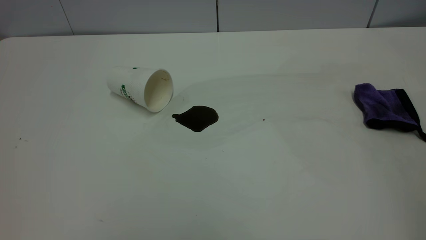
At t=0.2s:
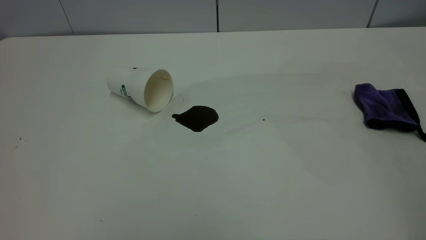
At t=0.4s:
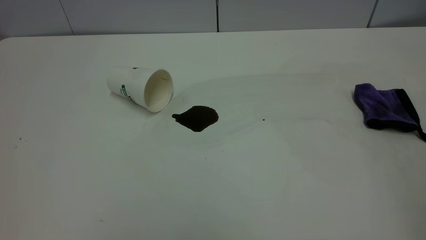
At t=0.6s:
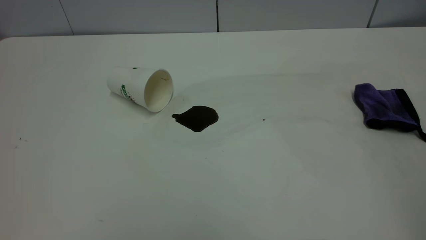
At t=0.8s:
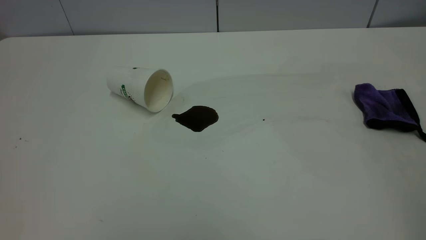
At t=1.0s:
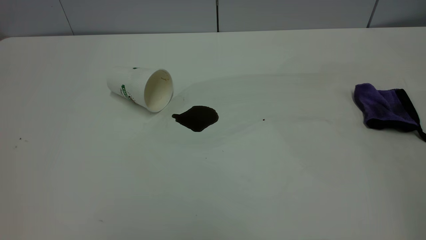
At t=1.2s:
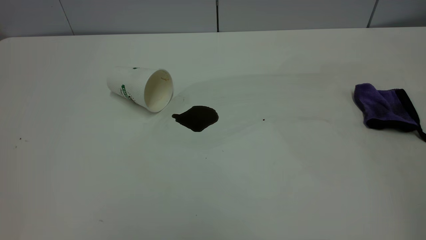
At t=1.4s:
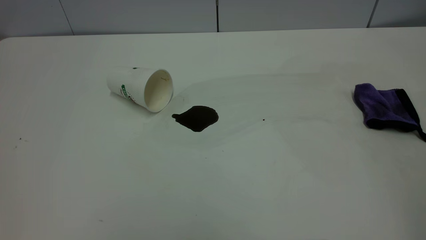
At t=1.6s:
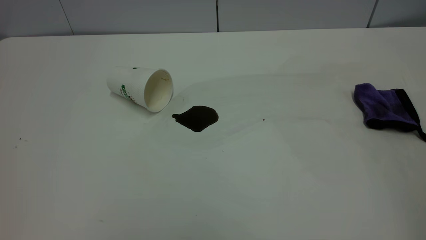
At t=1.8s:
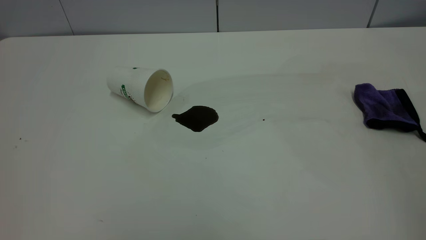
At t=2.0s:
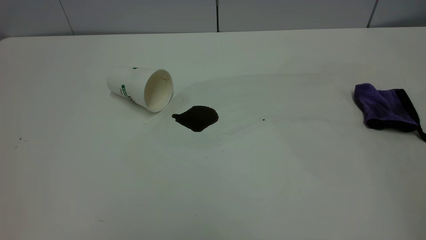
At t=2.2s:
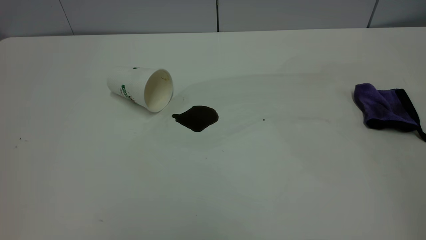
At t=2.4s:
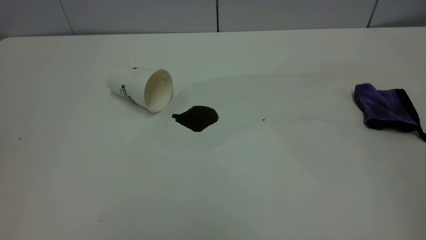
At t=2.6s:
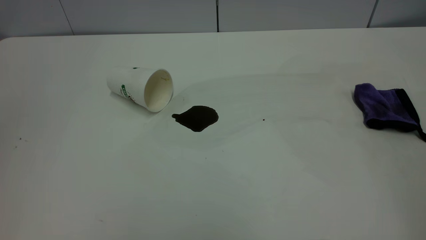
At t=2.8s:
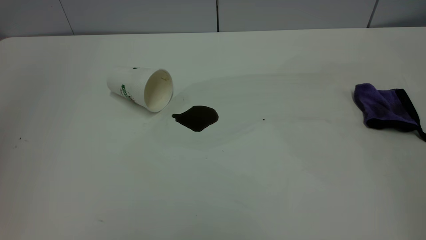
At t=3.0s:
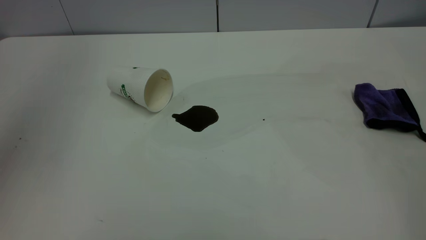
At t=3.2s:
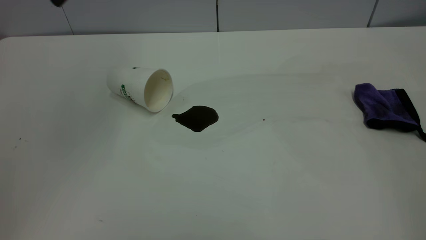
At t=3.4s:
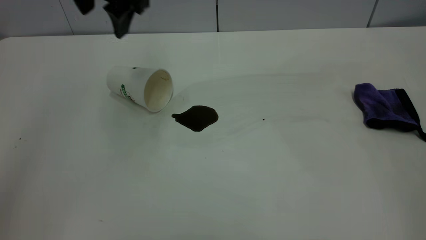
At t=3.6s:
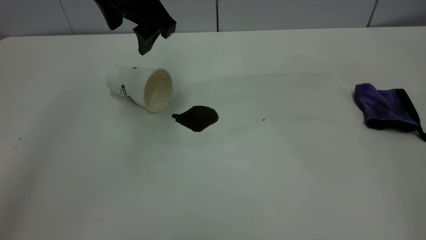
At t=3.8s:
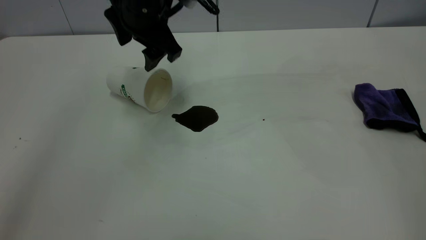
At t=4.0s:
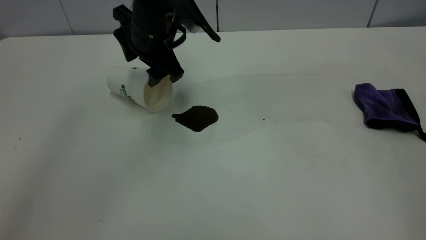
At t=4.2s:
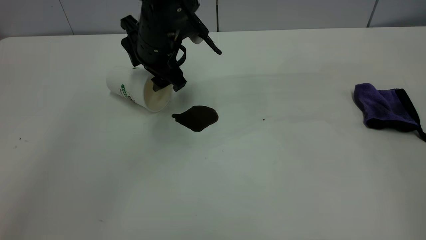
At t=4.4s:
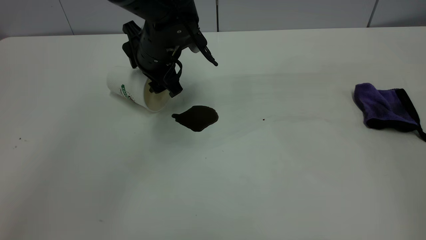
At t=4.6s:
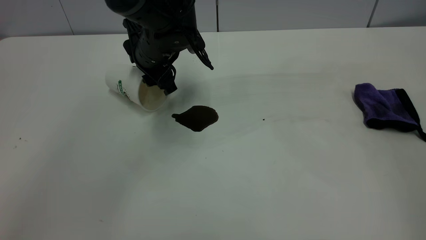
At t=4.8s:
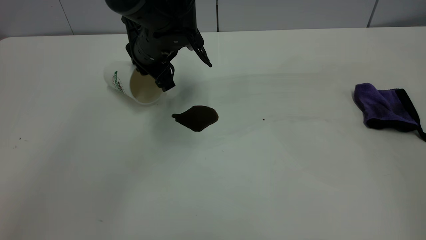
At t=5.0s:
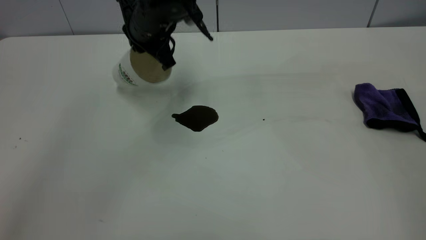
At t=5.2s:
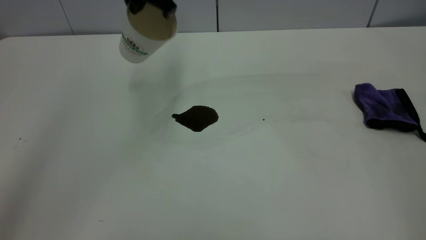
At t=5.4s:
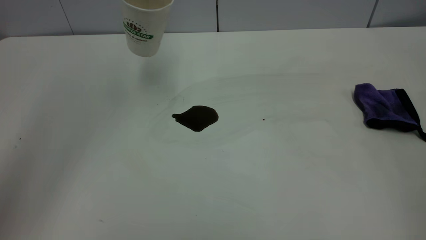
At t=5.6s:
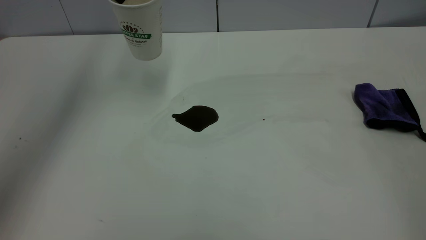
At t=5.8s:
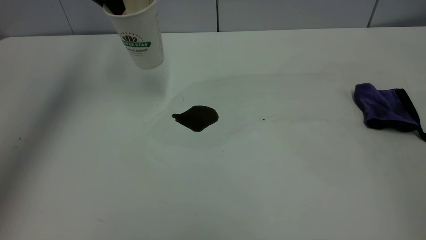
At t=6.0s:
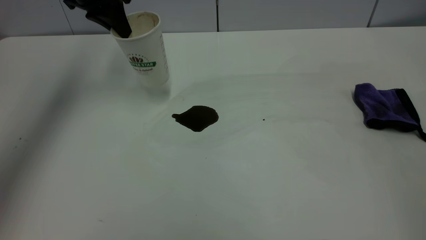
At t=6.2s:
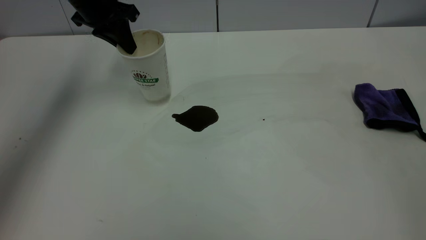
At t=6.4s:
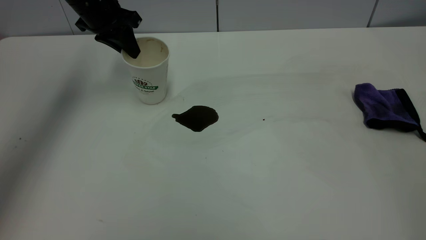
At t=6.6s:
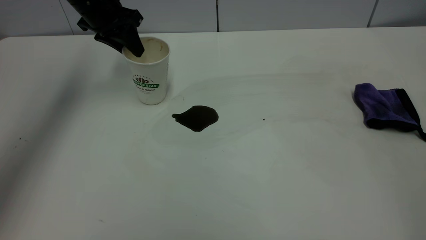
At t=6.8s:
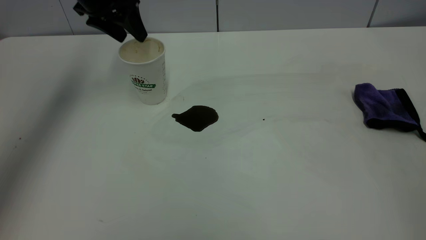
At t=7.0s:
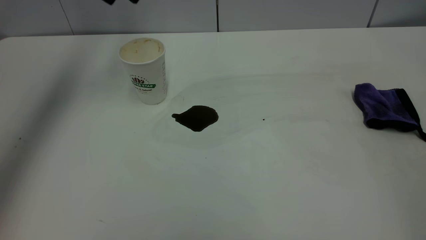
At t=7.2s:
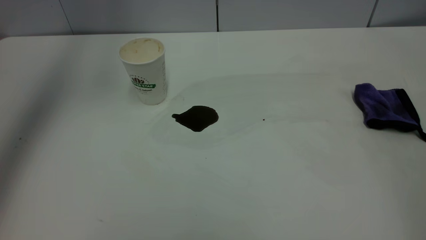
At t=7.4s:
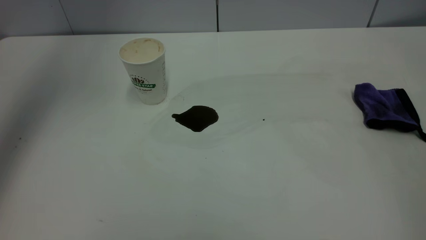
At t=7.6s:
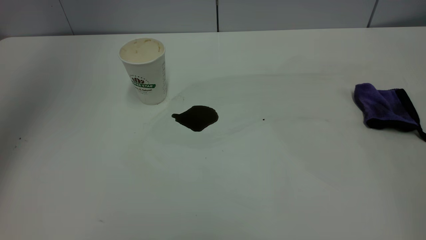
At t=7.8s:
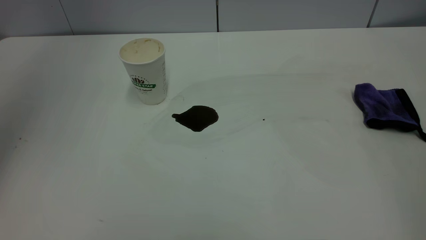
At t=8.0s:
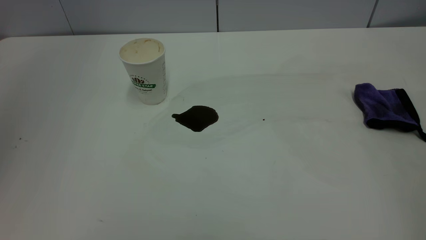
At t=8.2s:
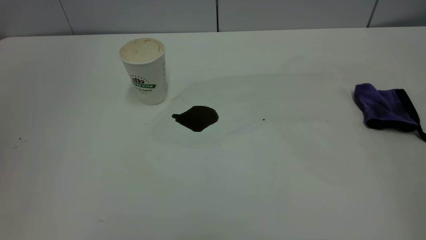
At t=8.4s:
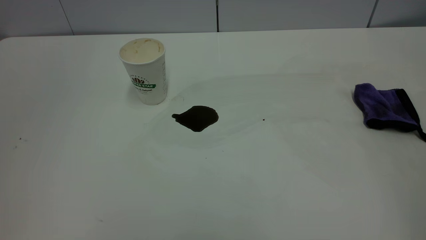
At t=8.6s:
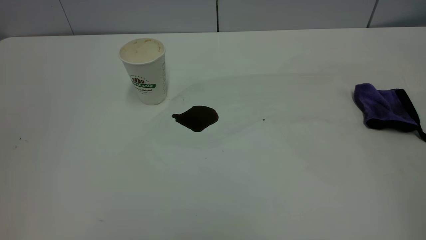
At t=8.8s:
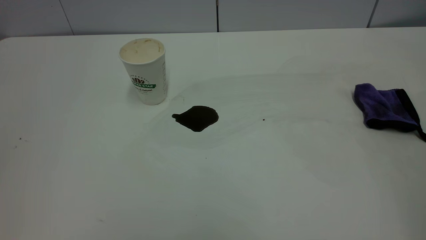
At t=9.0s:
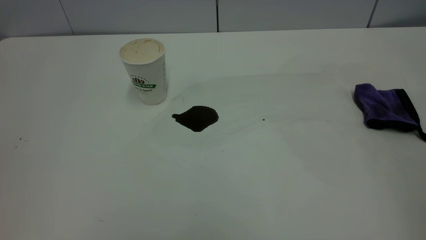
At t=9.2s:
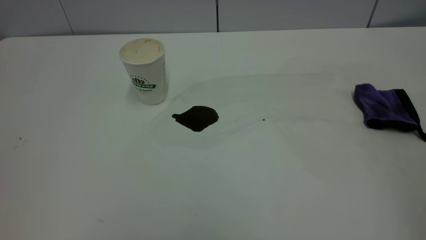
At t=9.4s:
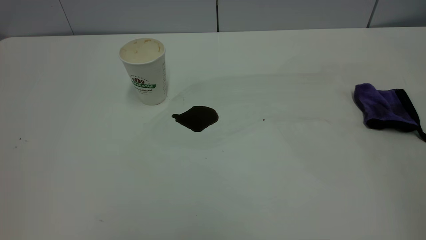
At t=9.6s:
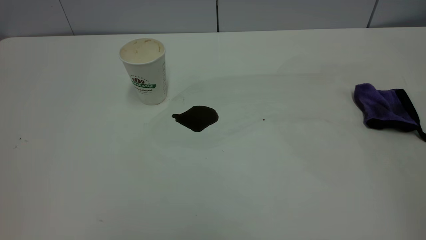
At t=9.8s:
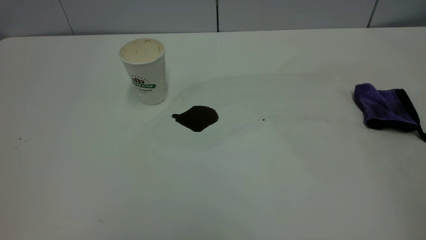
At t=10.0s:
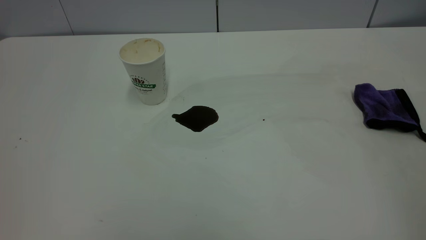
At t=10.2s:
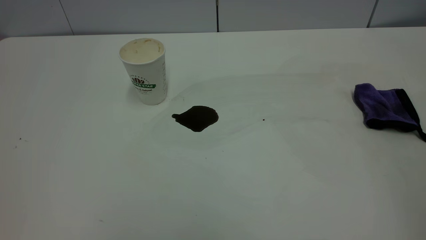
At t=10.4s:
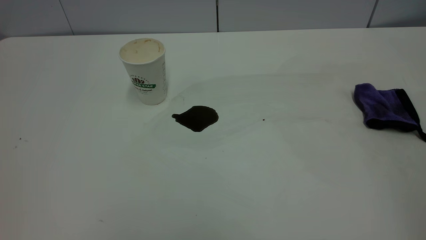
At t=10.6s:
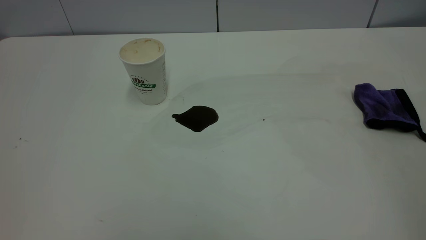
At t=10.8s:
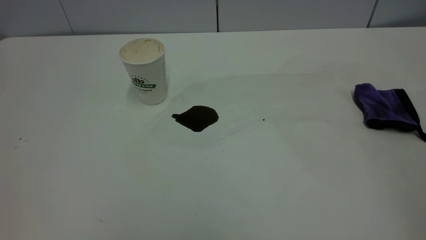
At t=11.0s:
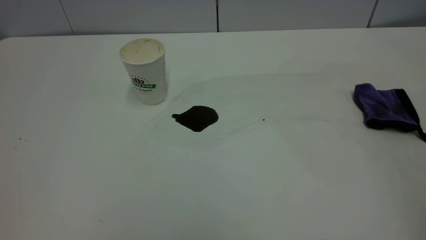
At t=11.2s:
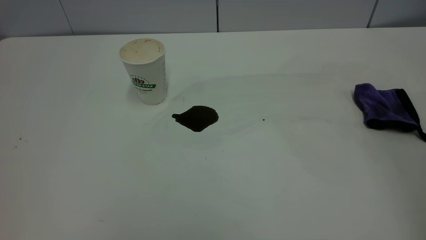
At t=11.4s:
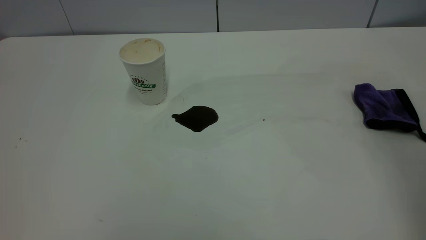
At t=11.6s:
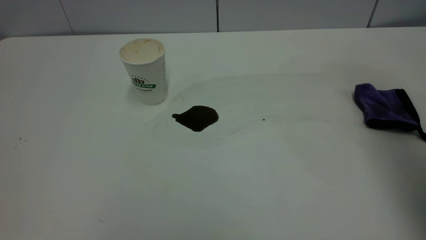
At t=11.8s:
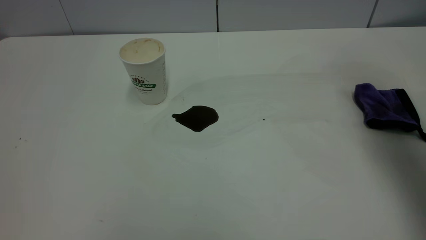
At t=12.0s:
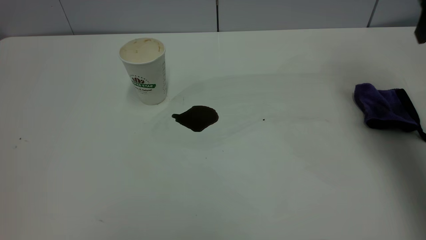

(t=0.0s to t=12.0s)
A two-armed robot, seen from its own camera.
Task of the whole recording: the left gripper pick up the fallen cup and place it upright, the right gripper grasp the purple rag and wipe the coffee stain on the table, the right gripper put the purple rag back in its original position.
Step, t=0.0s - t=6.8s: Stand the paper cup upright.
t=0.0s - t=1.6s: The two grippers keep their place.
t=1.6s - t=3.0s: The left gripper shifts about 30 cm forward, and opens up.
t=3.0s - t=4.4s: The left gripper shifts about 35 cm downward, to the right and forward.
t=4.4s - t=6.0s: The left gripper heads to the left, upward and forward, covering approximately 20 cm, and closes.
t=6.0s - t=7.6s: The left gripper shifts roughly 30 cm upward, and opens.
t=7.6s - t=9.0s: The left gripper moves backward and downward, some 40 cm.
t=10.4s - t=12.0s: The right gripper shifts approximately 35 cm forward, and opens.

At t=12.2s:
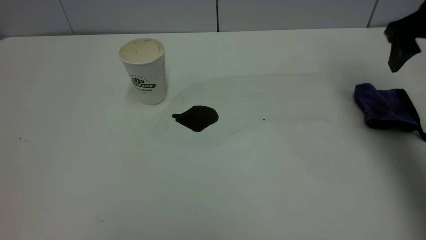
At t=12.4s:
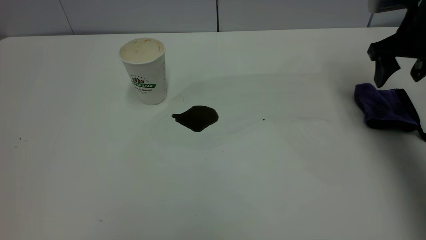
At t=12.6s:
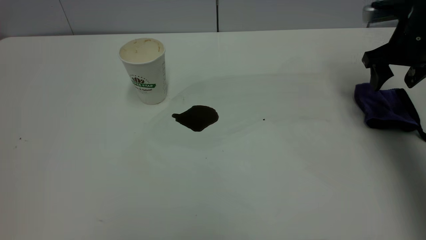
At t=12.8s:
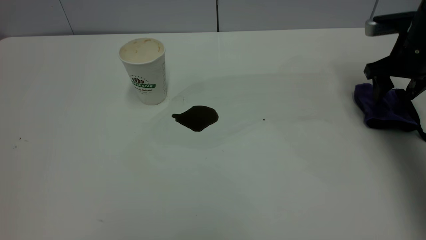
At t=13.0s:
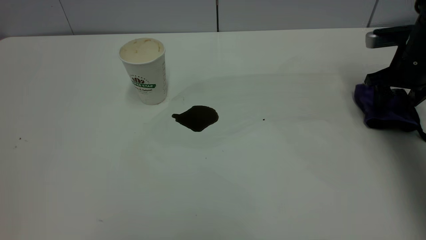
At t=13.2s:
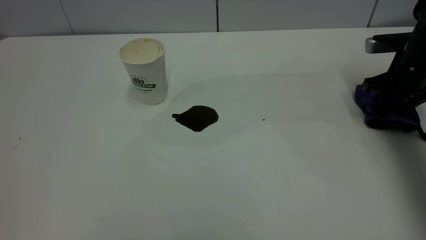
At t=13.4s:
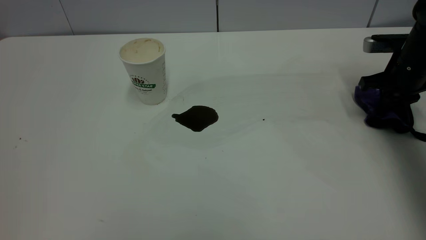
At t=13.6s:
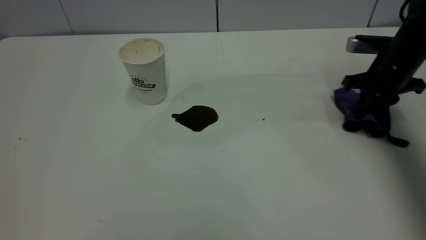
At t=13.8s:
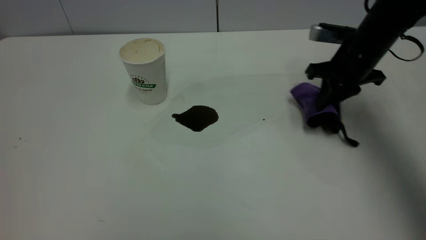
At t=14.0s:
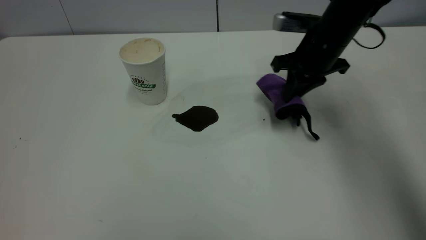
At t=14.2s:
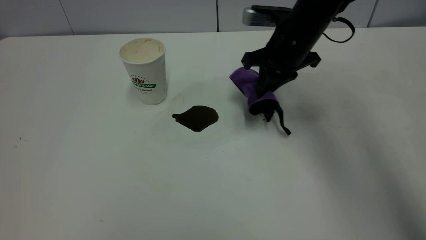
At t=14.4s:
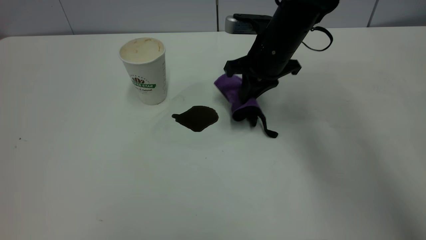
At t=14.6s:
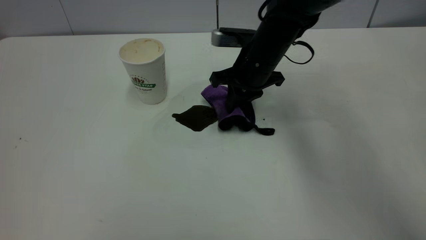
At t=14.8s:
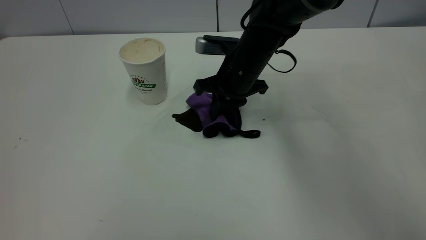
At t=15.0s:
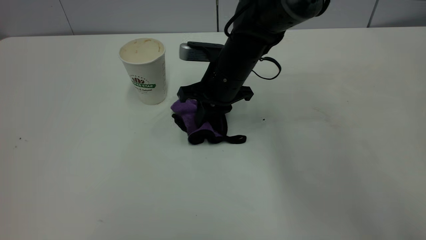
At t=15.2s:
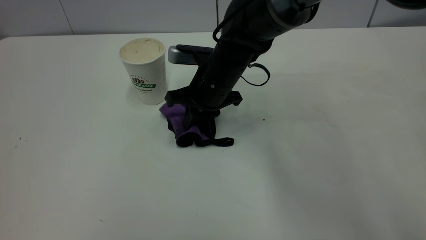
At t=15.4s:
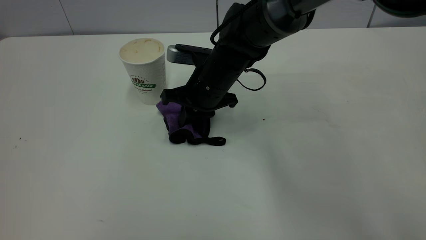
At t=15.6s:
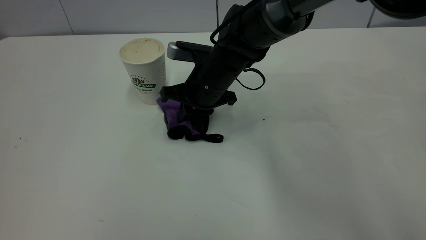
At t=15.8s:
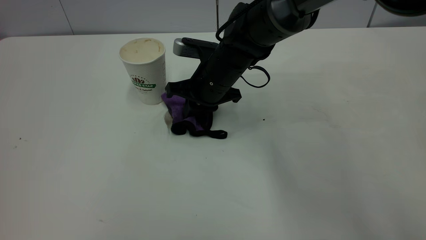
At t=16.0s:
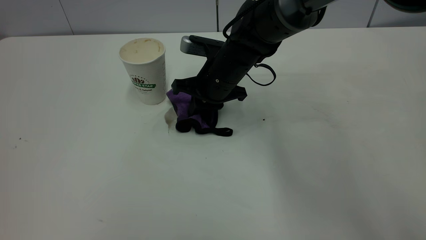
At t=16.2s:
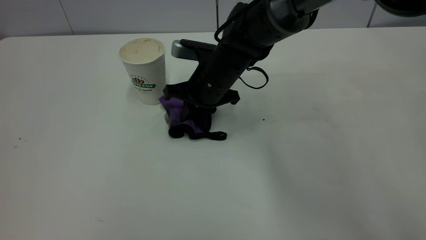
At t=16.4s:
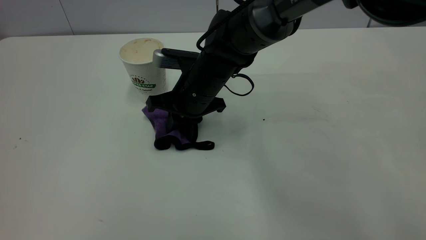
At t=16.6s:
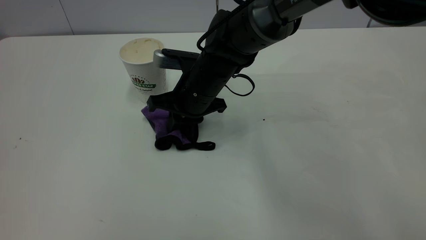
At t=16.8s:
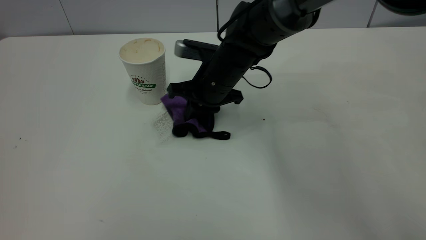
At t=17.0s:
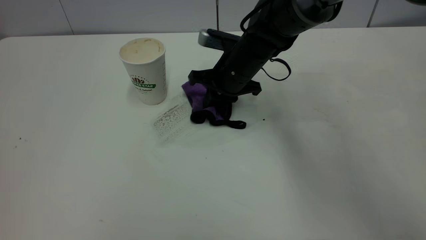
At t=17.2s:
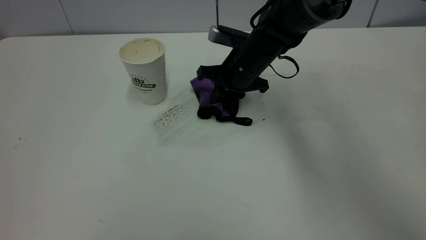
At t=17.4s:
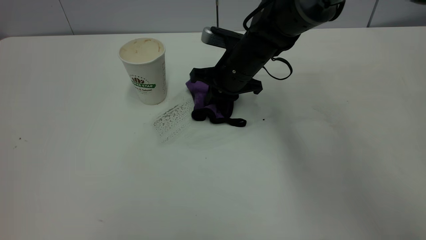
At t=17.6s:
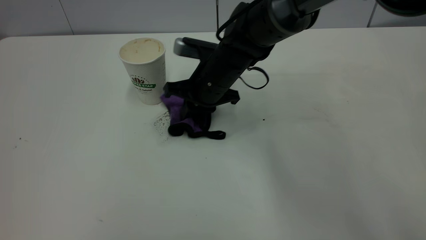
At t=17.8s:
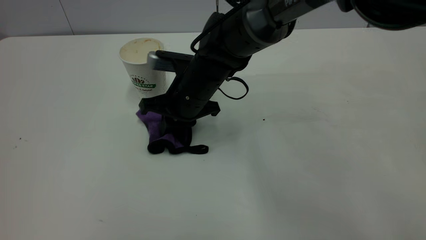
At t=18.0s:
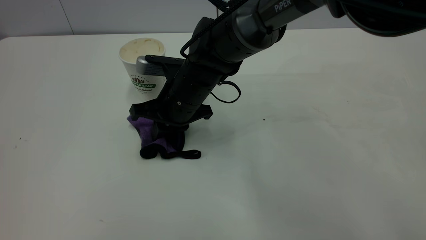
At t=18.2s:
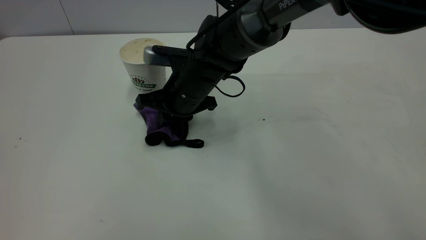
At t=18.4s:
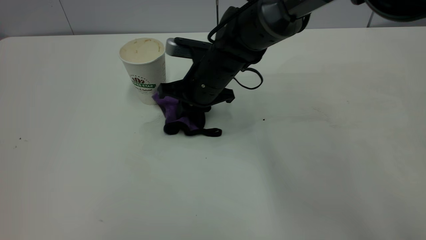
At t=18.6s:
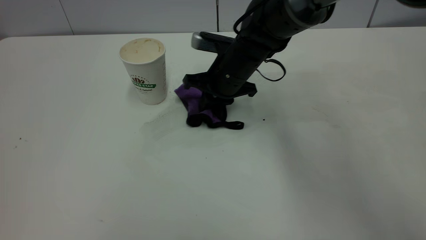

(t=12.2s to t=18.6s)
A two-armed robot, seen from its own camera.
Task of the whole recording: the left gripper pick up the fallen cup and place it upright, the right gripper grasp the purple rag and wipe the coffee stain on the table, the right gripper put the purple rag back in its original position.
t=12.2s - t=13.8s: The right gripper heads downward, to the left and forward, covering approximately 15 cm, and closes its fingers.
t=13.8s - t=15.4s: The right gripper is displaced to the left by roughly 25 cm.
t=15.4s - t=17.0s: The right gripper moves to the right, about 5 cm.
t=17.0s - t=18.6s: The right gripper moves some 10 cm to the left and comes back.
